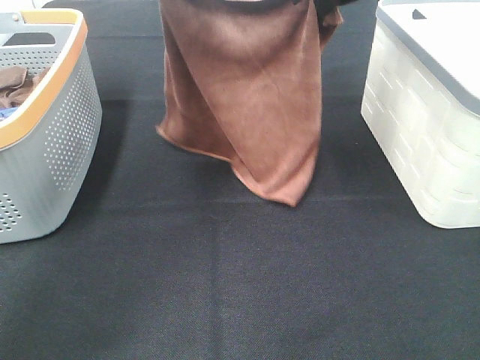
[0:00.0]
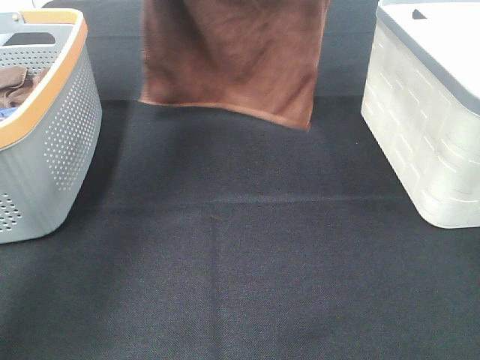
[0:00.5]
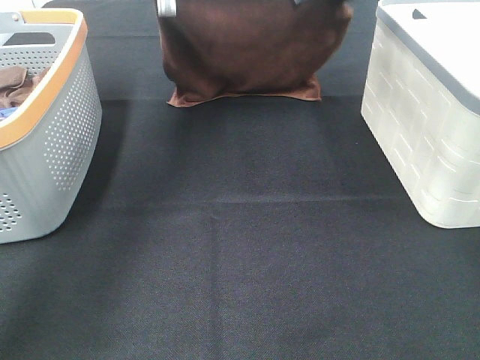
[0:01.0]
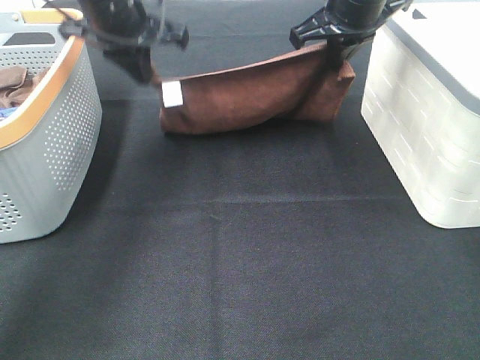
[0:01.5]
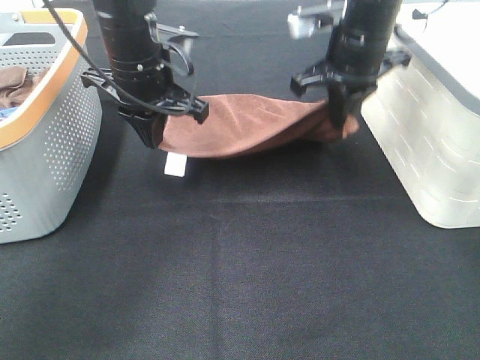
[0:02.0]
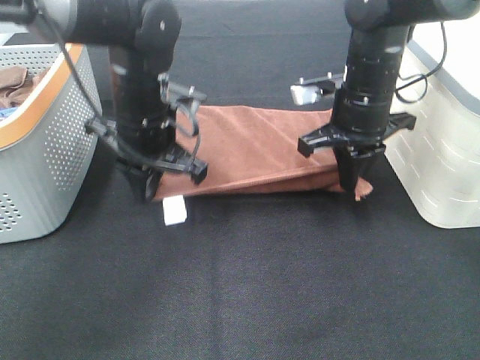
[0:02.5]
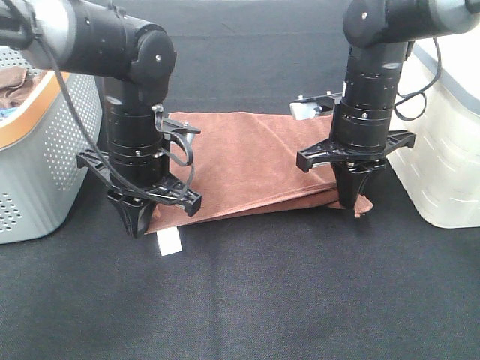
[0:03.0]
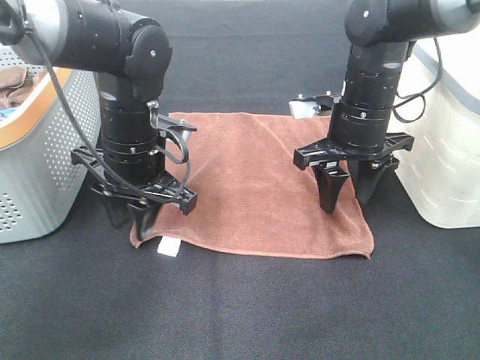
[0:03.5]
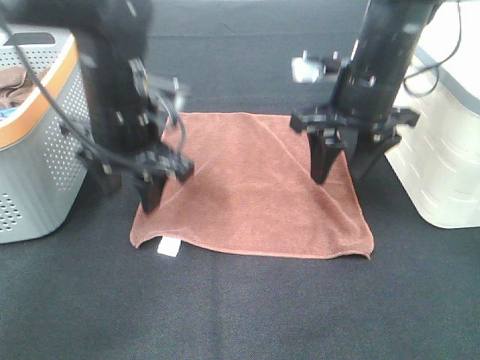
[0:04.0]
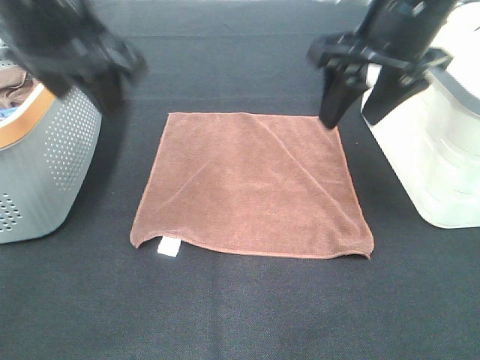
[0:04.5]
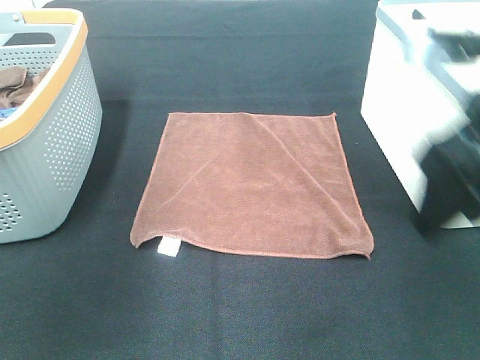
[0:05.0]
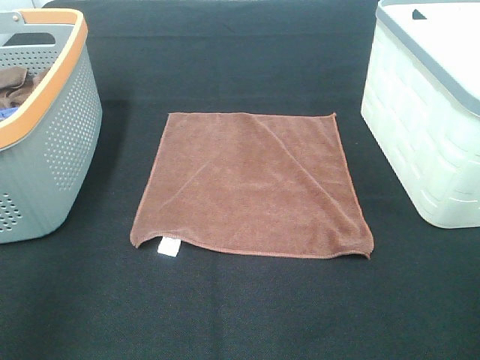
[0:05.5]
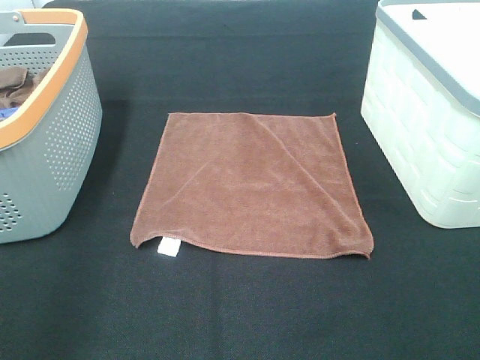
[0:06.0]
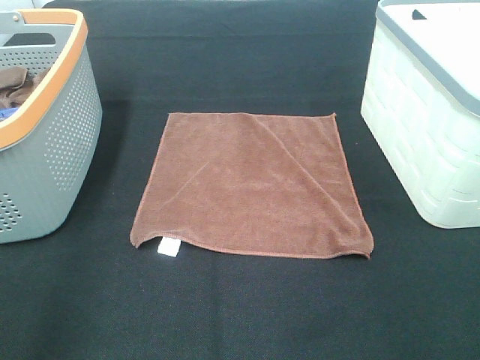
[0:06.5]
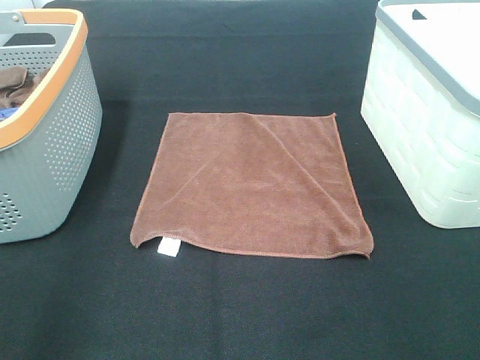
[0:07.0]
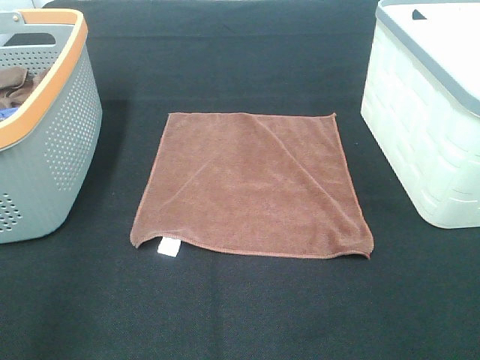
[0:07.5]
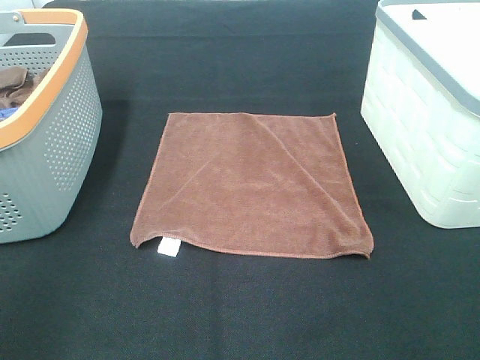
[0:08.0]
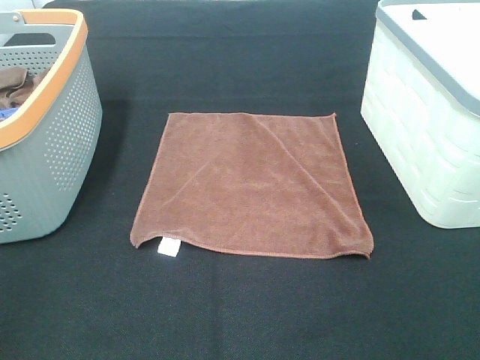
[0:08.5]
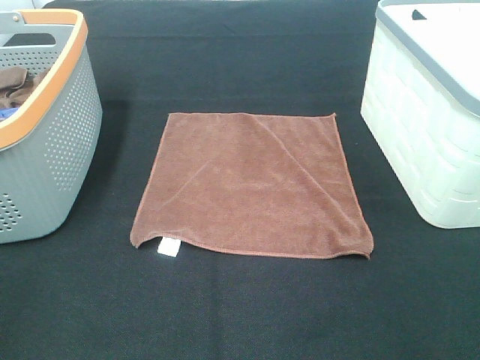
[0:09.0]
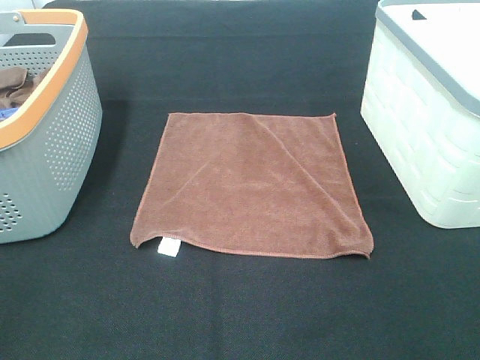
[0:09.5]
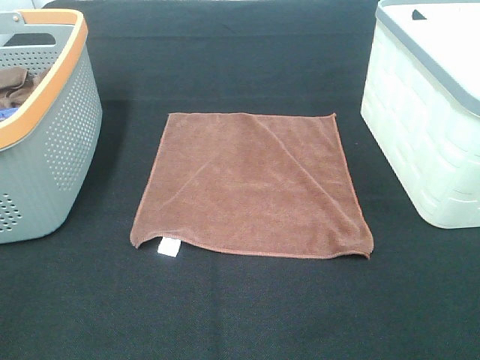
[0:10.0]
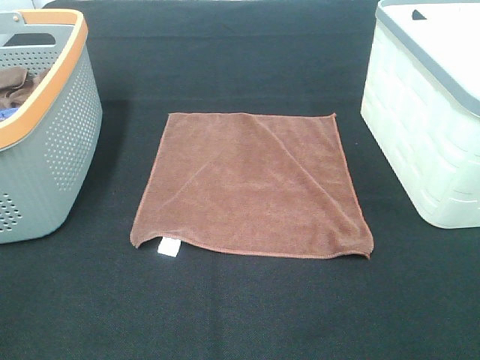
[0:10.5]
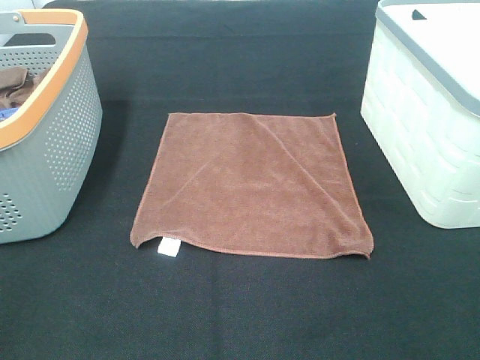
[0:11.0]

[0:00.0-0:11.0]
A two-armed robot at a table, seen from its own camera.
Task of the whole recording: Remove the towel and place it.
0:00.0 to 0:02.0: The left gripper travels downward by some 15 cm; the right gripper moves downward, about 10 cm.
0:02.0 to 0:03.5: The left gripper moves downward and backward, some 10 cm, and opens. The right gripper moves downward, about 5 cm, and opens up.
0:03.5 to 0:05.5: The left gripper moves backward, to the left and upward, roughly 30 cm; the right gripper travels backward by about 25 cm.

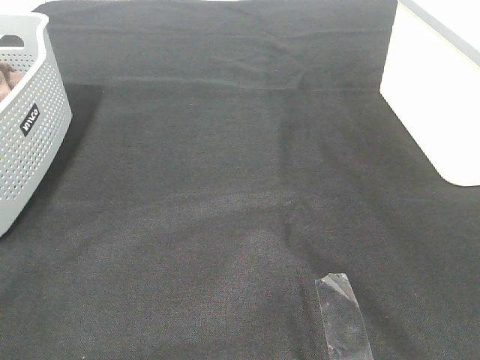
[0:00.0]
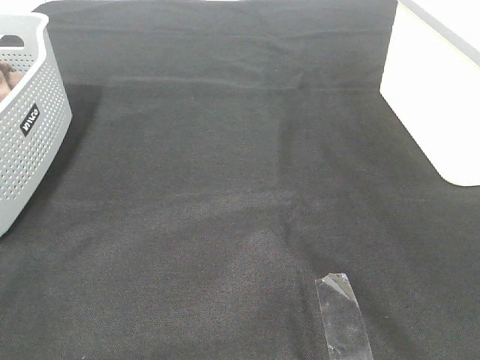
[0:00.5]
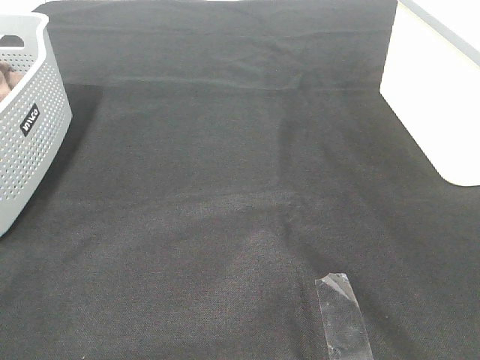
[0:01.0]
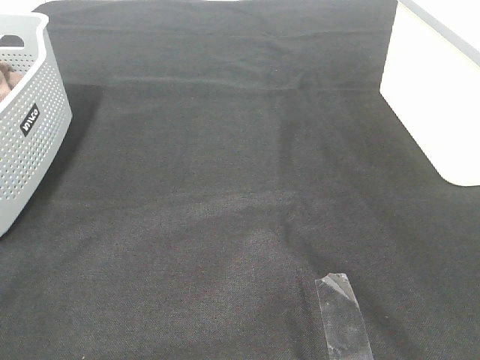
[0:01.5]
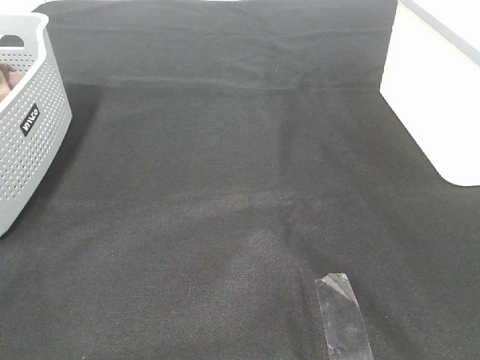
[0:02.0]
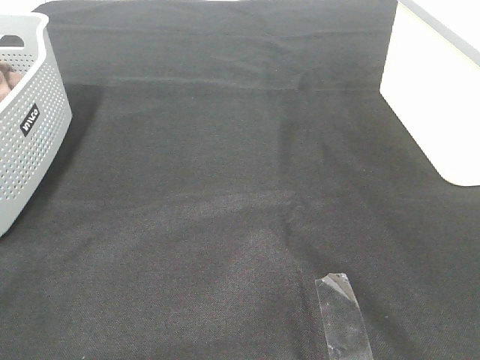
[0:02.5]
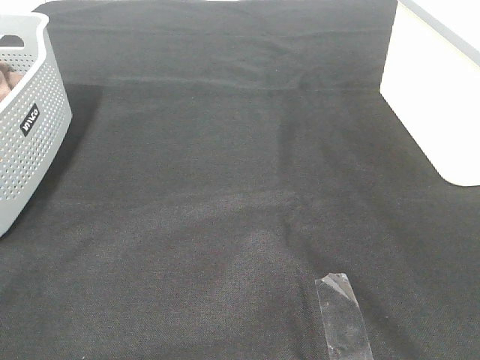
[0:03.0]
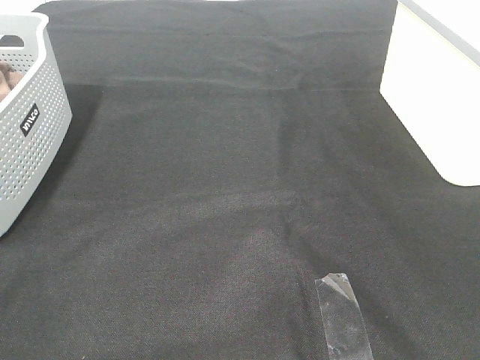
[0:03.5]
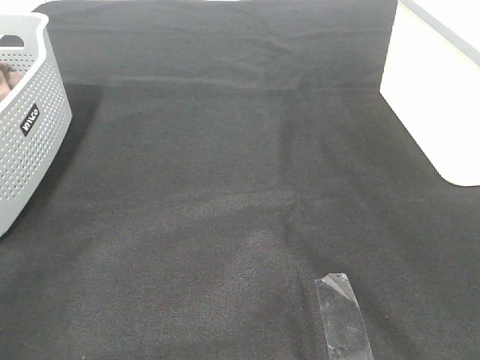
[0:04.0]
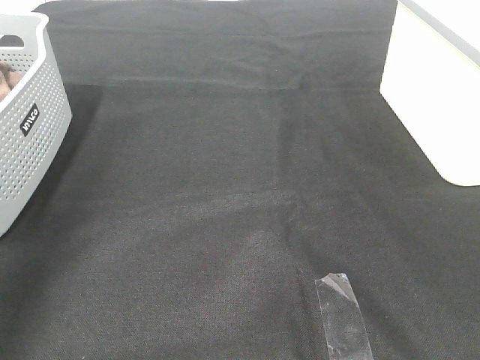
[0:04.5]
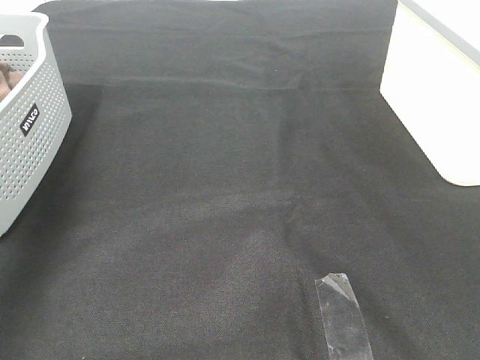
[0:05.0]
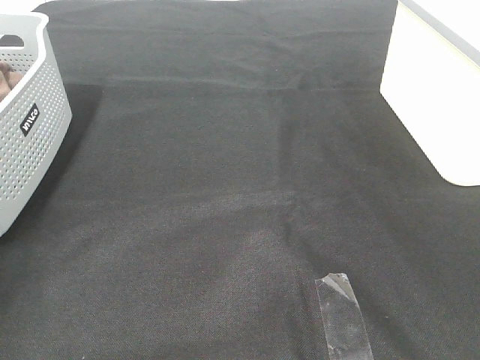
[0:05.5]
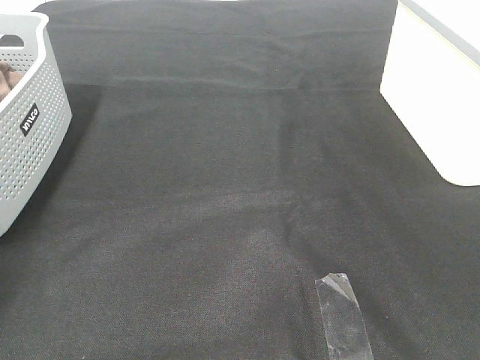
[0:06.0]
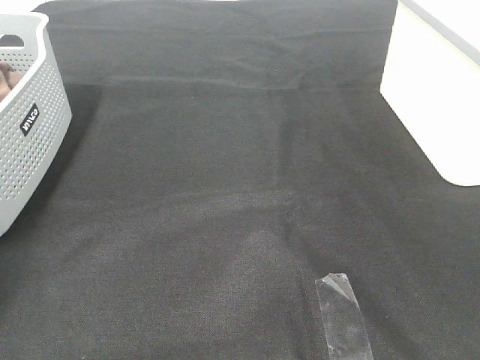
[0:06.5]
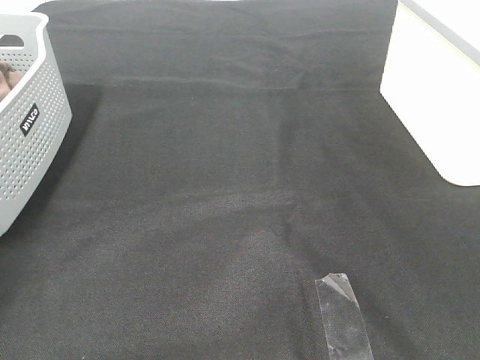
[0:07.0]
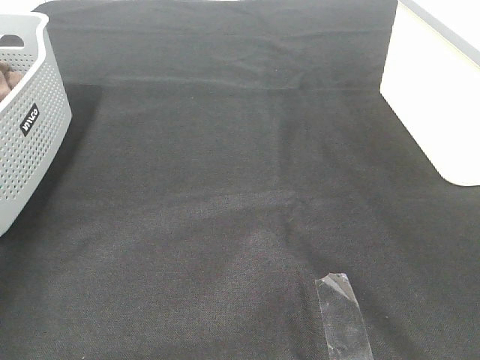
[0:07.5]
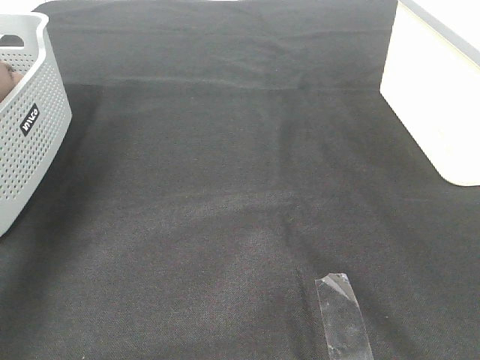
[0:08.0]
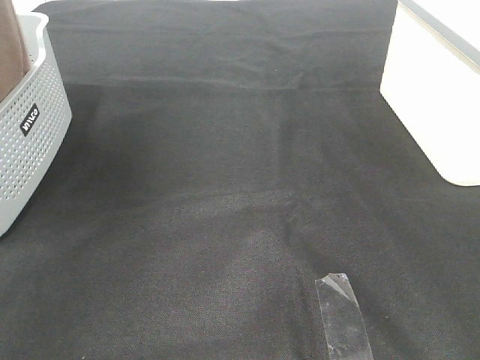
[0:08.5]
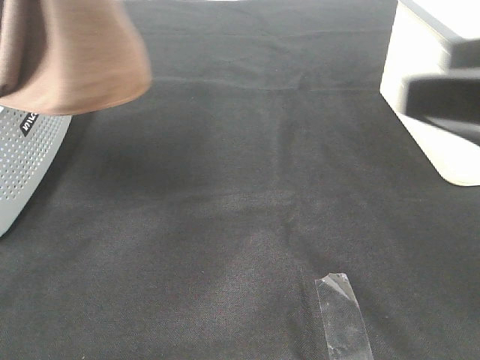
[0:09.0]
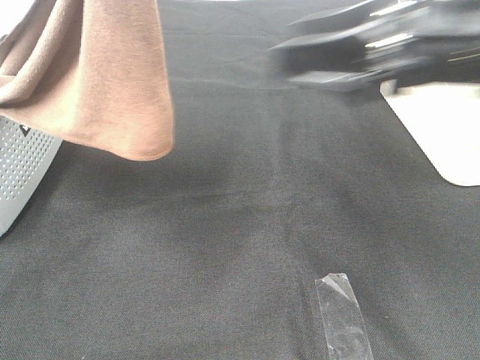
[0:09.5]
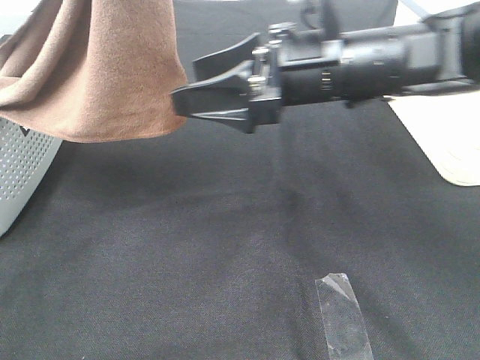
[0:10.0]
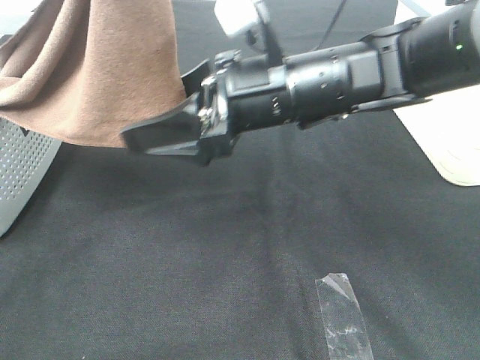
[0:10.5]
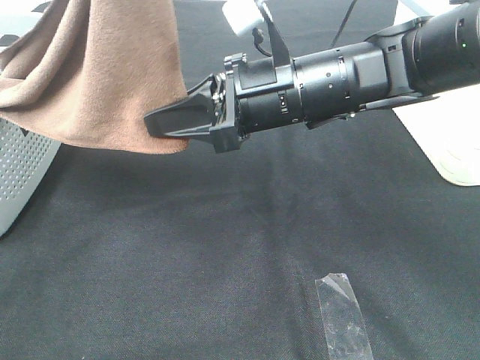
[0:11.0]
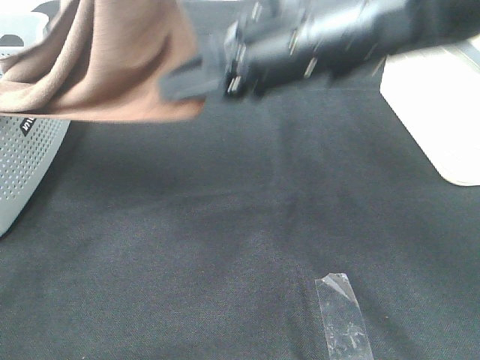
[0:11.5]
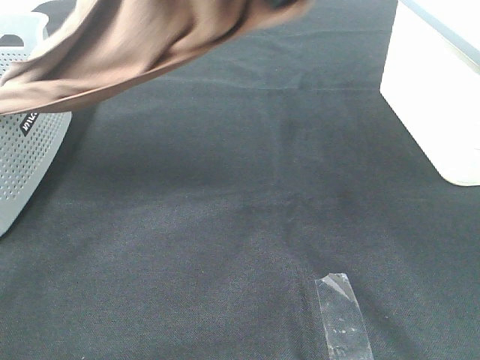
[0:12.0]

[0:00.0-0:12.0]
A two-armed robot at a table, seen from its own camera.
Task of the whole recording: Remove the towel and place it.
Step, 0:08.0 to 0:10.5: Right hand: grab a corner of the brown towel and straighten it.
0:00.0 to 0:02.0: Neither gripper changes place.
0:06.0 to 0:08.0: The left gripper shifts some 25 cm upward and to the right, and closes up.
0:08.0 to 0:10.0: The left gripper is displaced to the right, backward and upward by about 25 cm; the right gripper shifts some 35 cm forward and to the left.
0:10.0 to 0:12.0: The right gripper moves upward, roughly 15 cm, and closes its fingers.

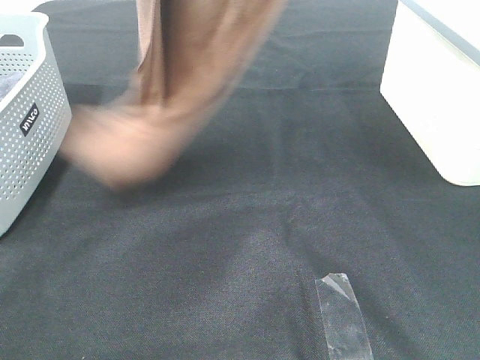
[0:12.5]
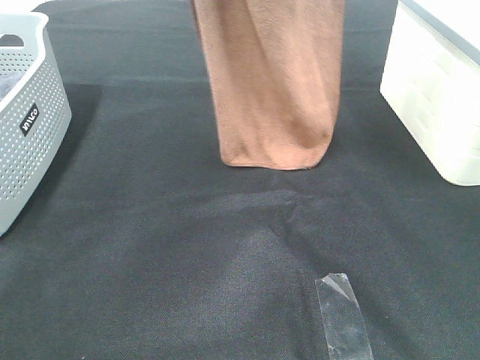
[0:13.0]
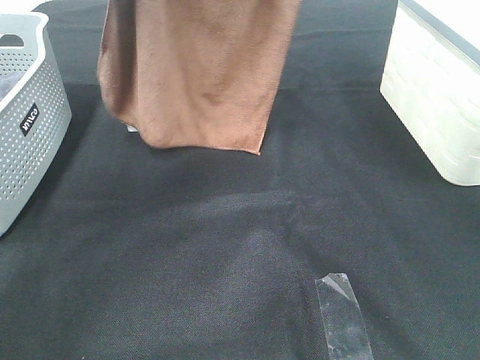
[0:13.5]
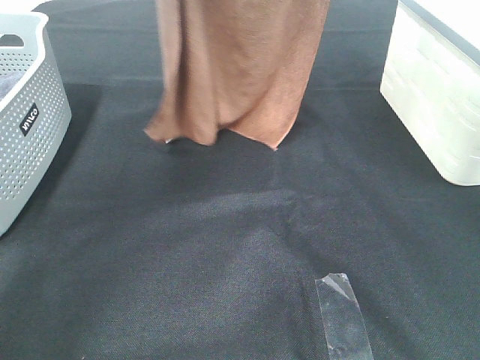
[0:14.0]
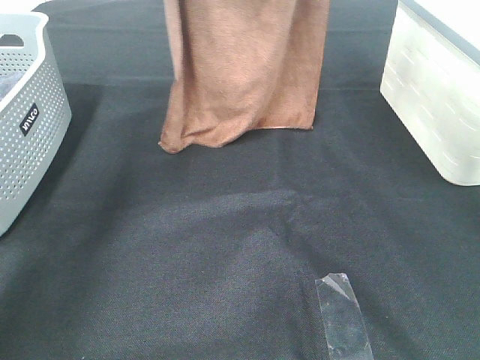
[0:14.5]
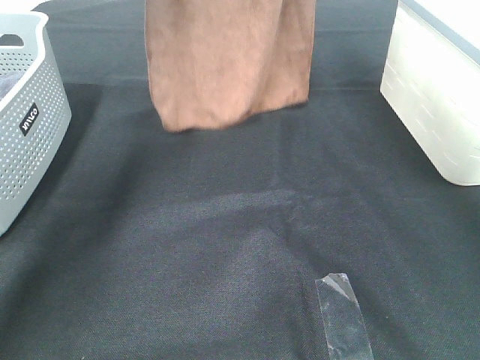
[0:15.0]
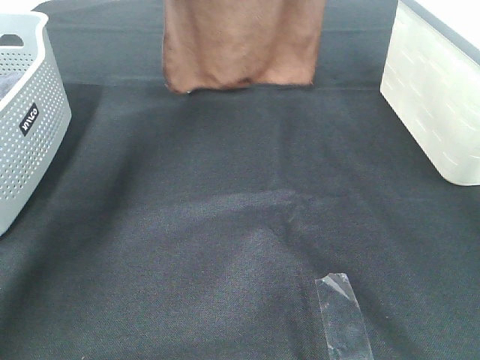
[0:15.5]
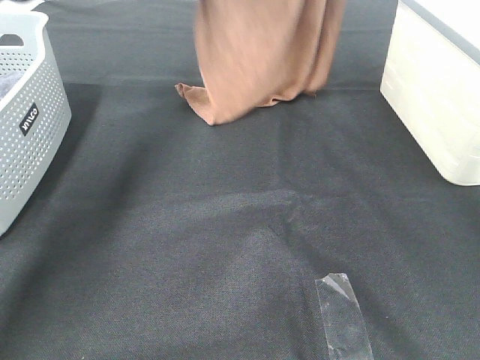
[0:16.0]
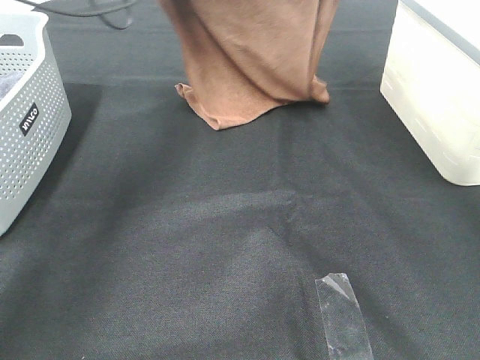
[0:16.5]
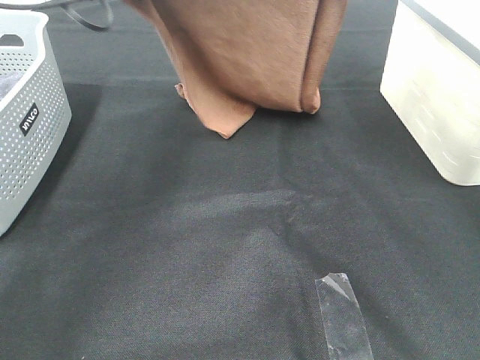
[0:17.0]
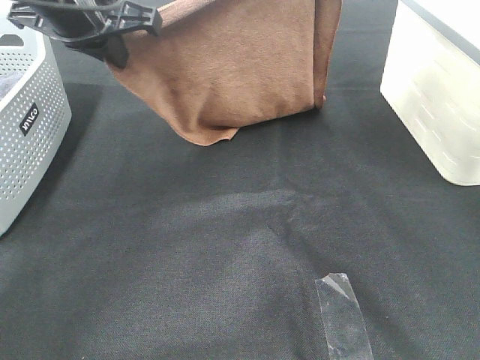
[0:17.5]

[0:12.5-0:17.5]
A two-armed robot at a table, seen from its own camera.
Task of the whole recording: Remove the towel and place it.
0:12.5 to 0:15.0: The left gripper shifts some 20 cm forward and downward; the right gripper shifts approximately 15 cm forward.
0:15.0 to 0:17.5: The right gripper moves downward and backward, roughly 10 cm. The left gripper is displaced backward and downward by about 20 cm.
